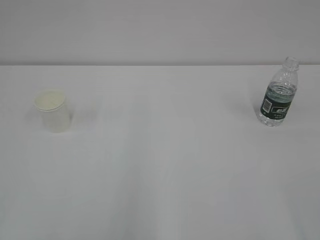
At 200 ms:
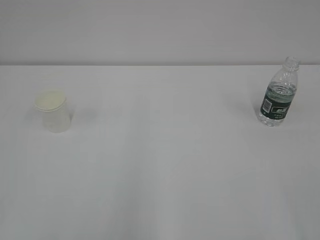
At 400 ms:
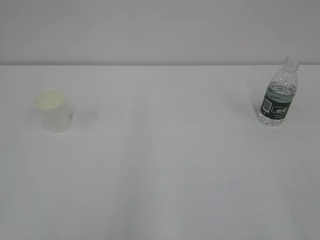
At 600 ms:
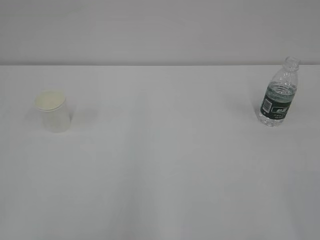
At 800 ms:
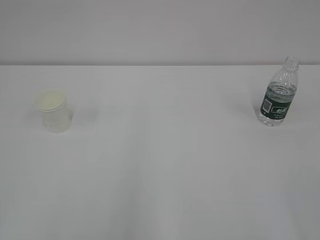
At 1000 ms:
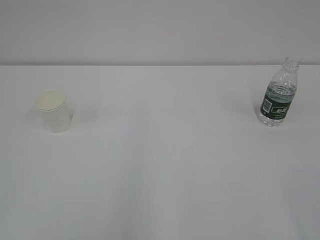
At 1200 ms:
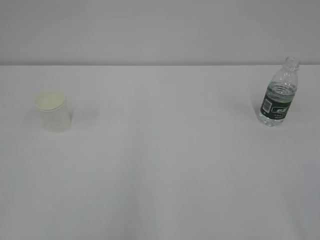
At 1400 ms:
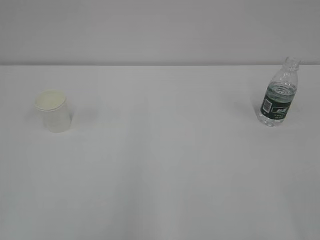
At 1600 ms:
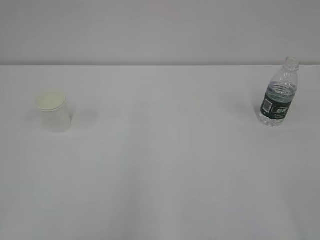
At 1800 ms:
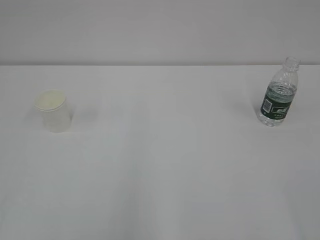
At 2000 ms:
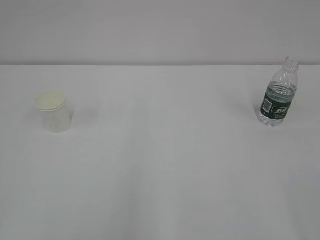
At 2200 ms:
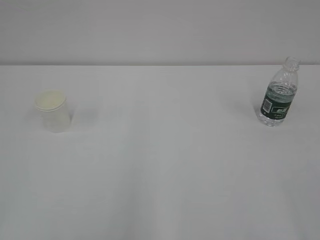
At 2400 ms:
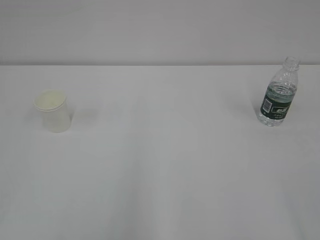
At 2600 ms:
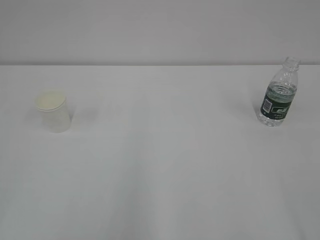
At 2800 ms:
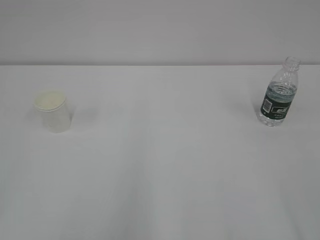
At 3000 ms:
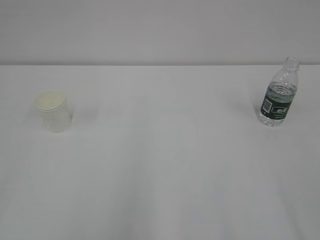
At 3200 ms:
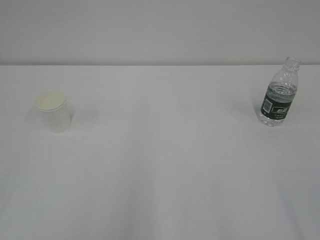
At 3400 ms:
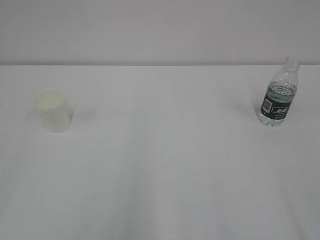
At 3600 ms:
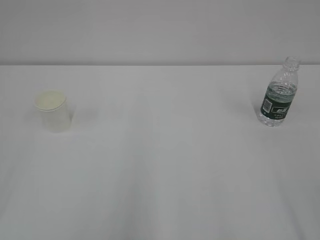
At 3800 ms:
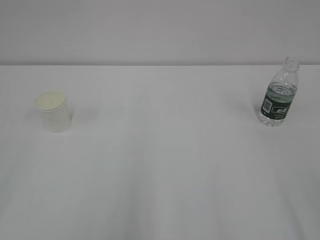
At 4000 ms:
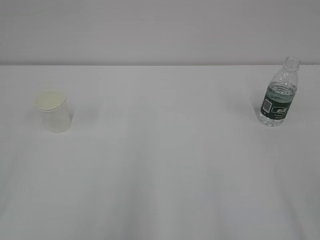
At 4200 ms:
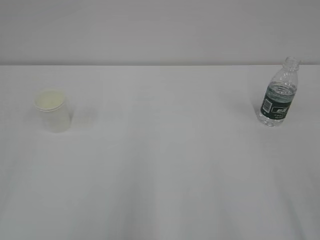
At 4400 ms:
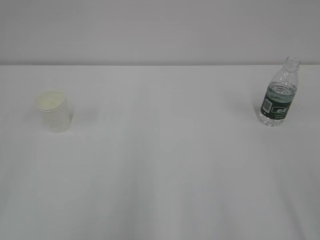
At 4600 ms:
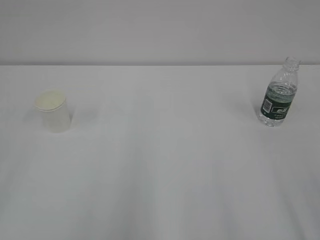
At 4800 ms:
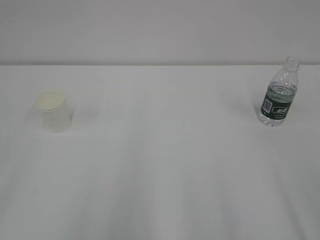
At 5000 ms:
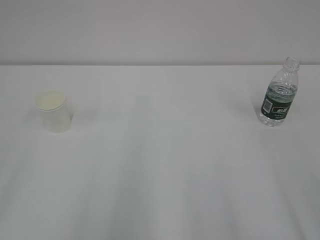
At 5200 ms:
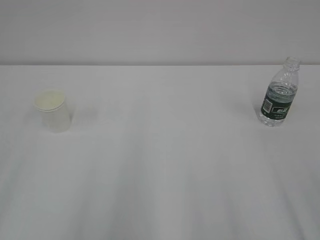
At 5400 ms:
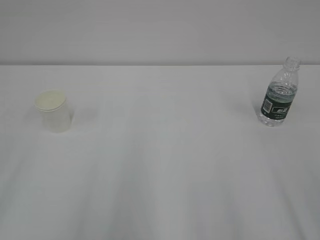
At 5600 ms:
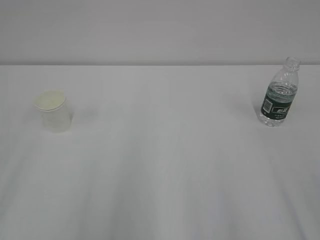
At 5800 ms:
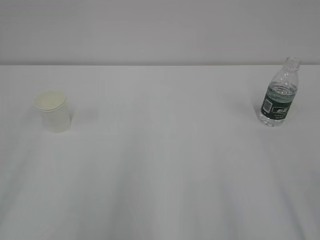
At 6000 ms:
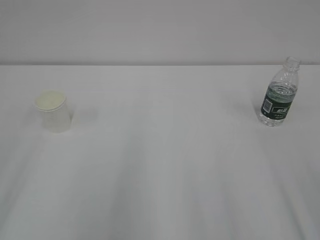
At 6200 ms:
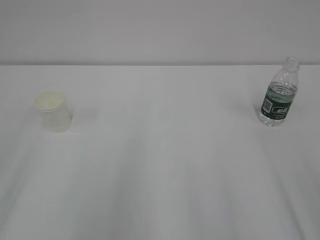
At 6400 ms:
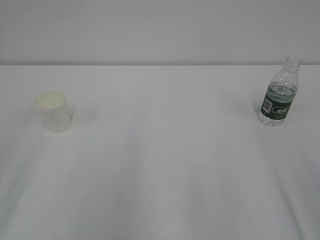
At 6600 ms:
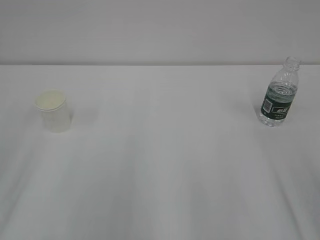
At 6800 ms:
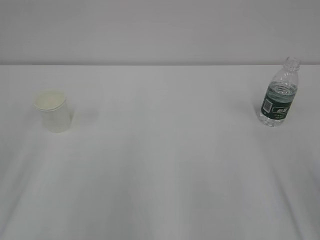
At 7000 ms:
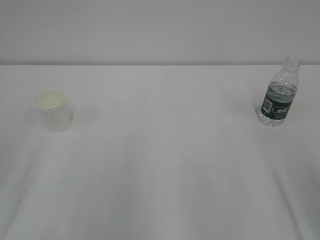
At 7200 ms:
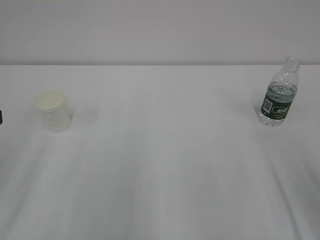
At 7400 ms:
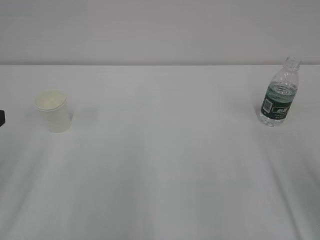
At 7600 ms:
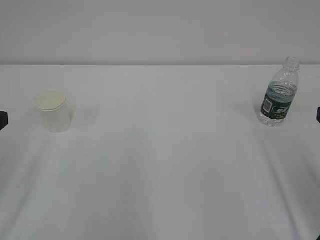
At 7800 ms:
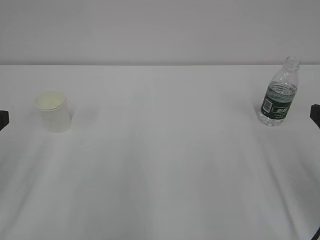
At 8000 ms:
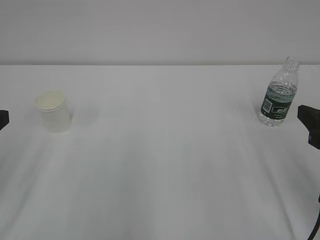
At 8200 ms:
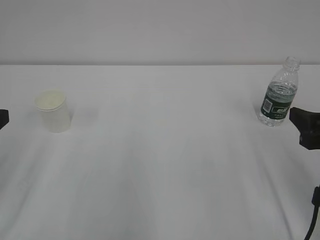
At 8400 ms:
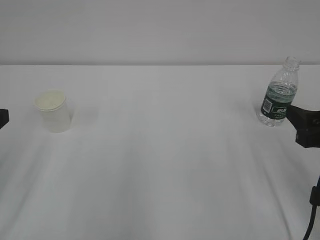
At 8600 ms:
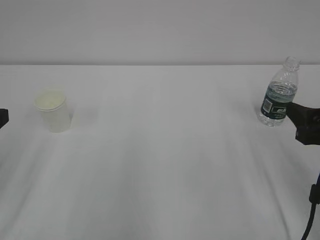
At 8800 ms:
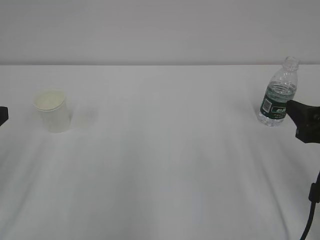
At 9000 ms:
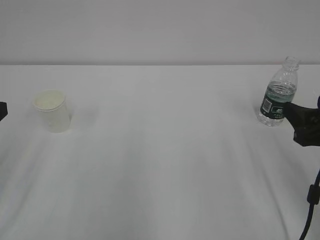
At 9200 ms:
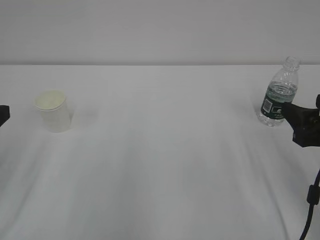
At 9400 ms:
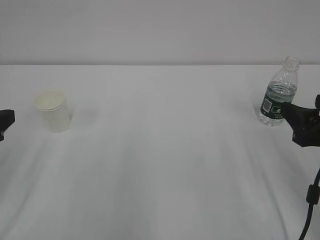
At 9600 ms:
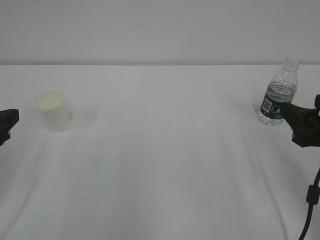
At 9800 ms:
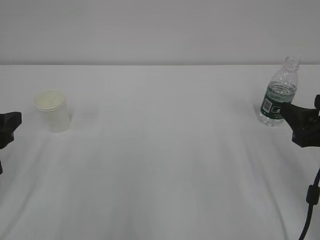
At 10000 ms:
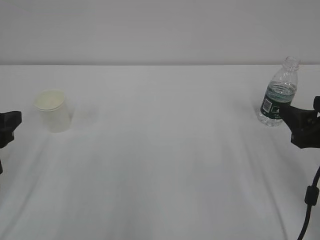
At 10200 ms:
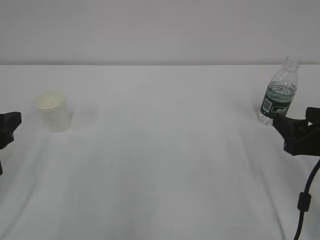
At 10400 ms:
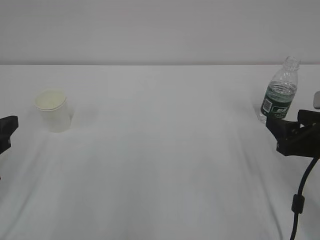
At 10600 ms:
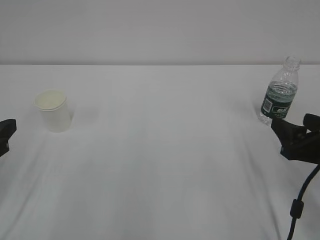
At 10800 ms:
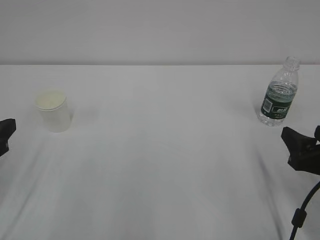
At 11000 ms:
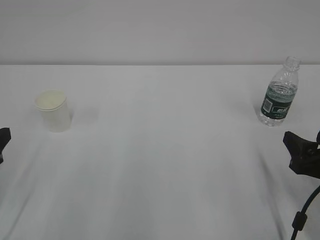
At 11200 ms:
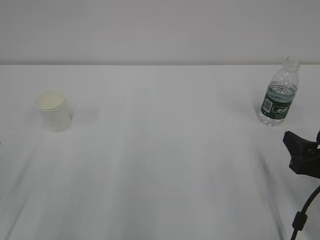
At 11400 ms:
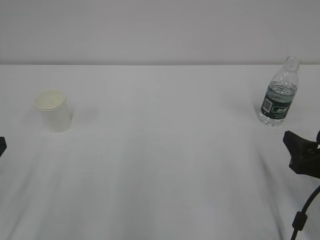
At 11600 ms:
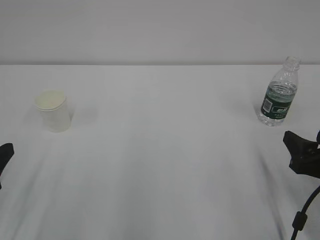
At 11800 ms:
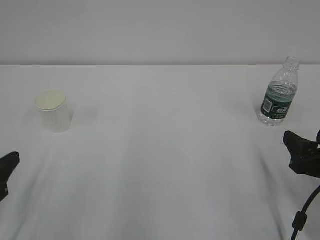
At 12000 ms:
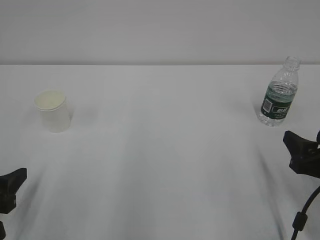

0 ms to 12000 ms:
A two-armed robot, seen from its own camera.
7600 ms to 9000 ms: The right gripper moves approximately 5 cm.
9000 ms to 10400 ms: The grippers move only a little.
10400 ms to 12000 ms: The left gripper heads downward, covering roughly 5 cm.

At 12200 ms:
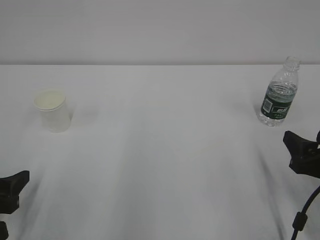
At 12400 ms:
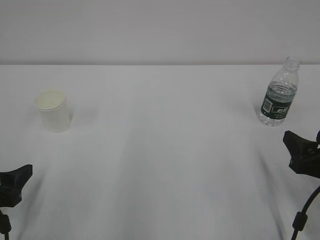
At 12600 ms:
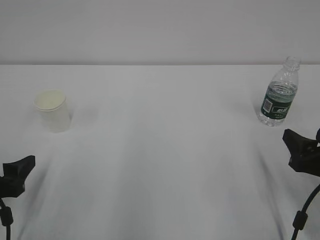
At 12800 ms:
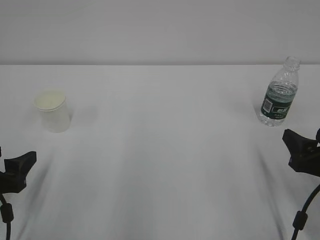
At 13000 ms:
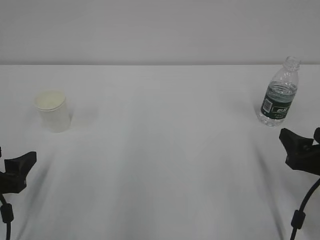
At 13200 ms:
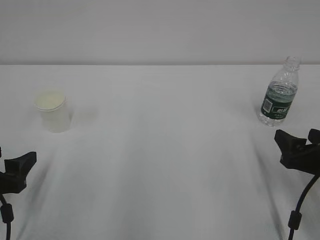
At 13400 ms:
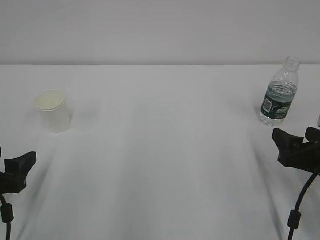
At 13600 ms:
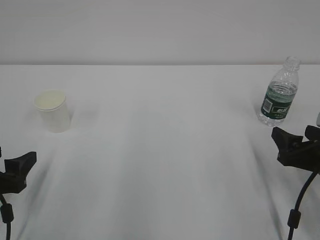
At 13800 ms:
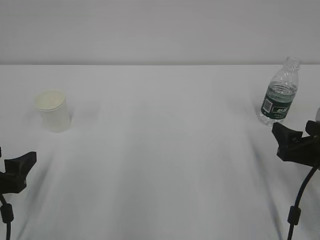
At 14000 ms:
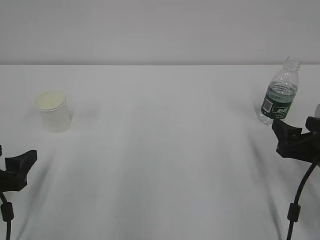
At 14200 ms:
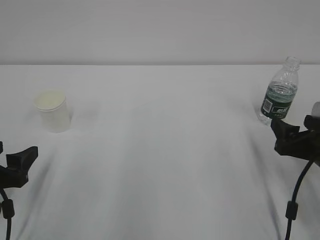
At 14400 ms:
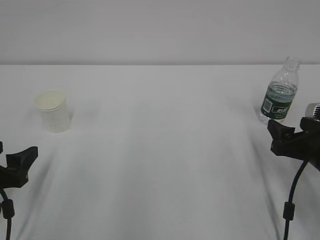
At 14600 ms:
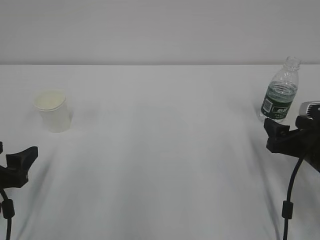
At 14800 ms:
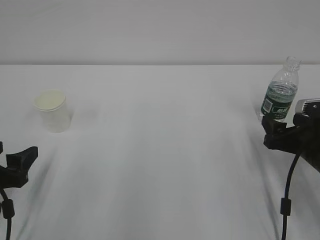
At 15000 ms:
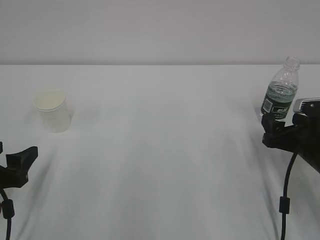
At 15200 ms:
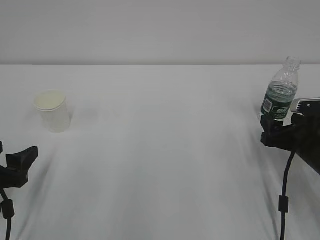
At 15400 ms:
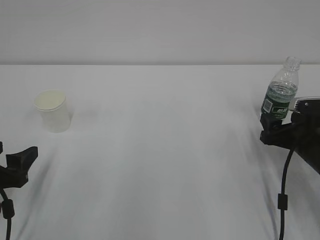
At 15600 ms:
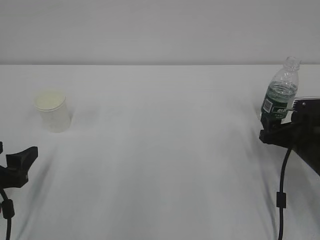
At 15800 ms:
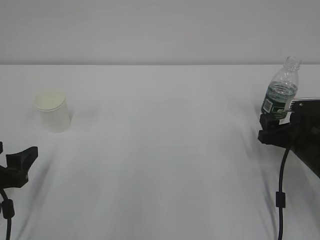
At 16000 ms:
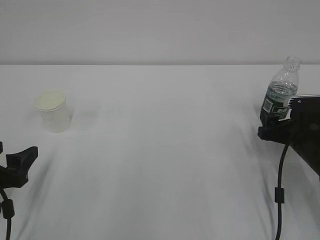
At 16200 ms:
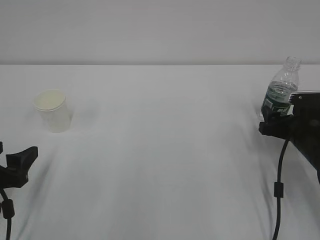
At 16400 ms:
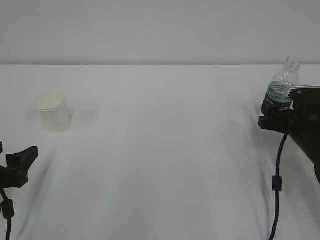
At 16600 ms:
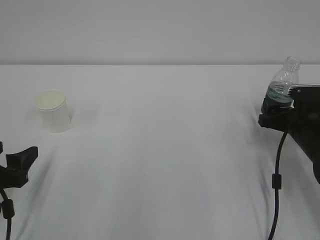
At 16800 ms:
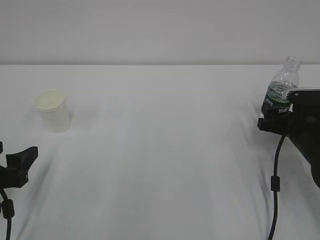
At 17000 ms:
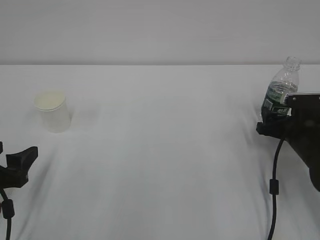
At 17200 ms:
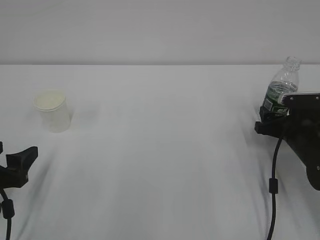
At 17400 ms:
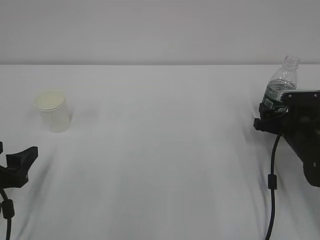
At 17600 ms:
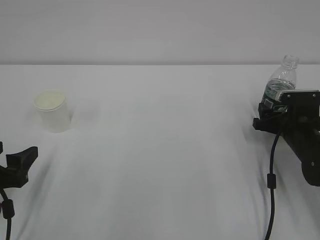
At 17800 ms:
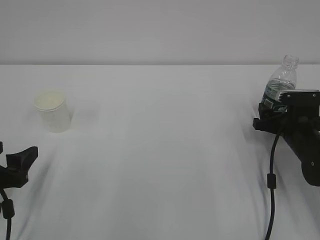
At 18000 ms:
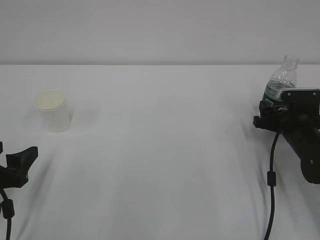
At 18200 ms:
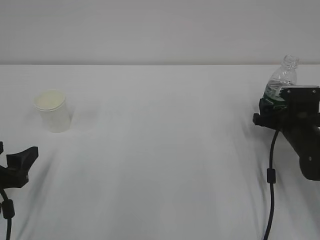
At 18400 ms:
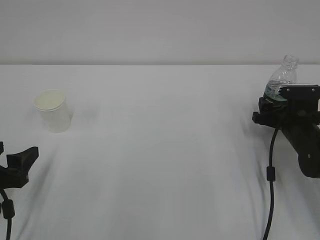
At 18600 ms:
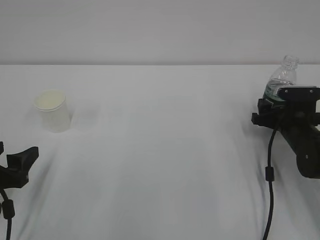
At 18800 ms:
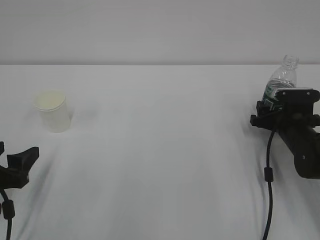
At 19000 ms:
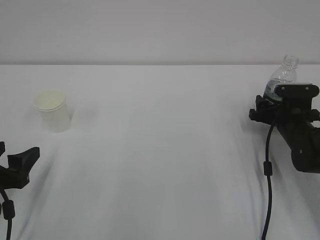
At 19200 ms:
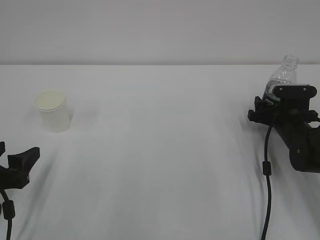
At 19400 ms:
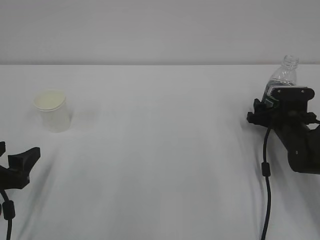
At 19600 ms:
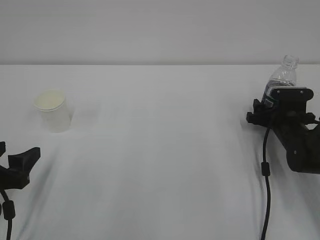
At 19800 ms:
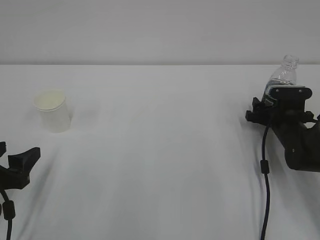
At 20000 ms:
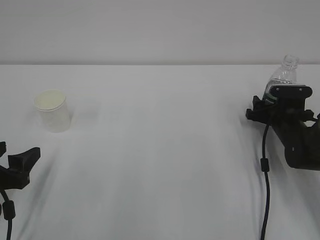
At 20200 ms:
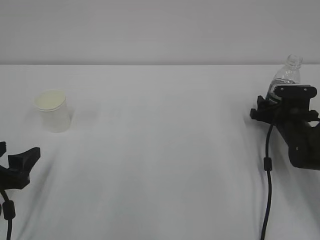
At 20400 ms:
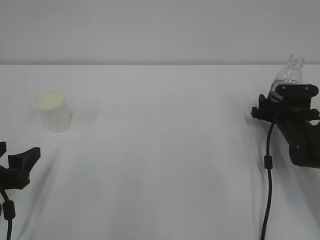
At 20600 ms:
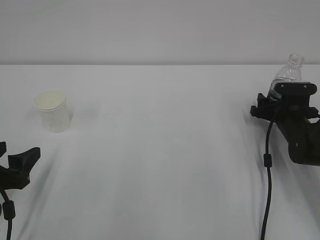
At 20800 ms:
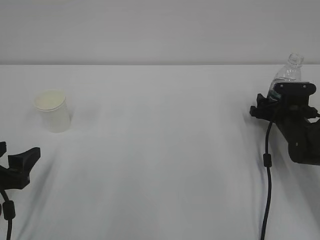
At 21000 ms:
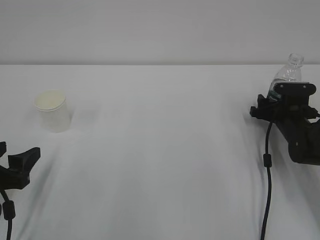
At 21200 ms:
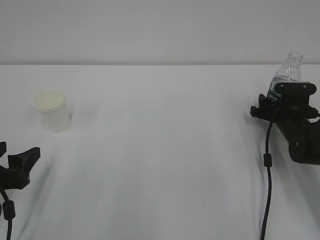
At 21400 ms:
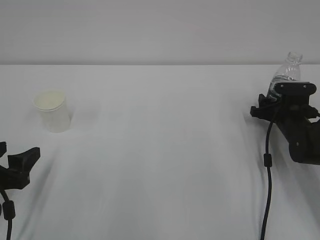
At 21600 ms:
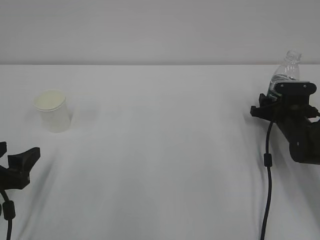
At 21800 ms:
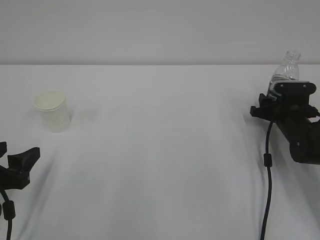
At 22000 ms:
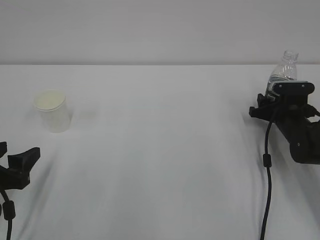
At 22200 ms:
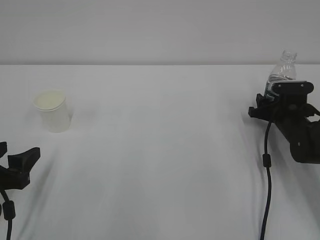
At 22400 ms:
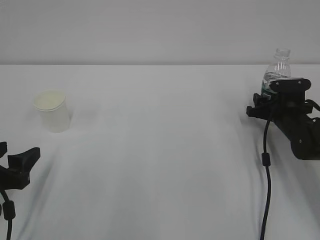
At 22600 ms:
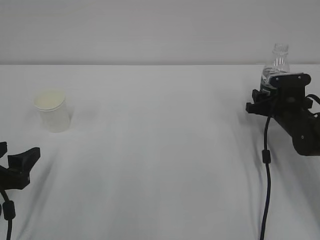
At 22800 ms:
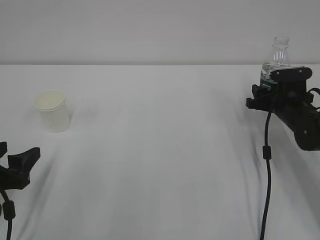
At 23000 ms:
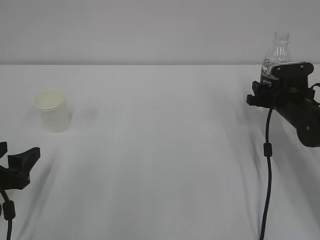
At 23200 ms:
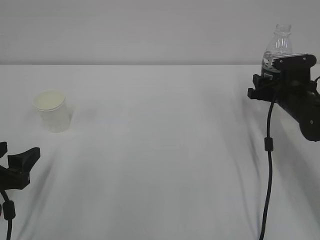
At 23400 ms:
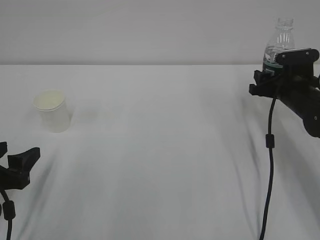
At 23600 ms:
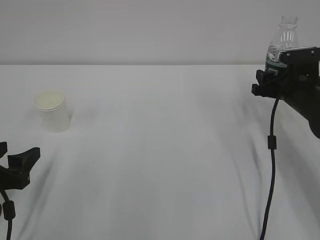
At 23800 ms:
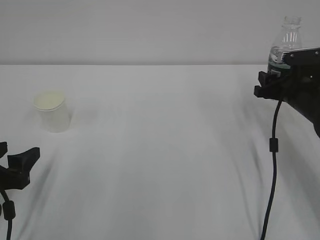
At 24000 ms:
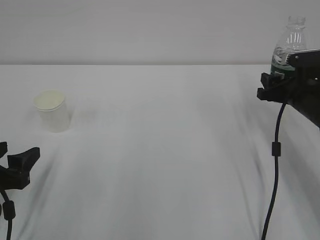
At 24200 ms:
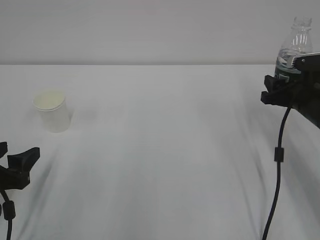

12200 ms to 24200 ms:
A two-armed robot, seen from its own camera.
12200 ms to 13800 ms: The left gripper opens.
13800 ms to 15200 ms: The right gripper is displaced forward by about 5 cm.
15200 ms to 16600 ms: The grippers make only small movements.
16600 ms to 18200 ms: The grippers make only small movements.
18200 ms to 19800 ms: The grippers move only a little.
19800 ms to 21200 ms: The right gripper closes its fingers.
21200 ms to 22600 ms: The grippers make only small movements.
22600 ms to 24200 ms: The right gripper travels upward and backward by about 10 cm.
